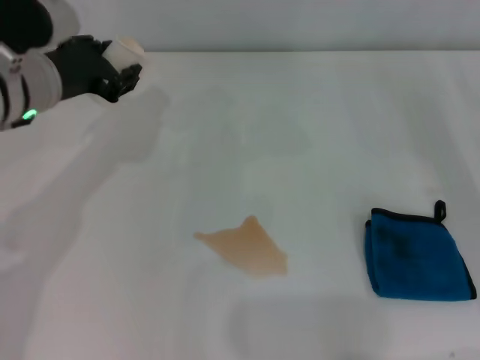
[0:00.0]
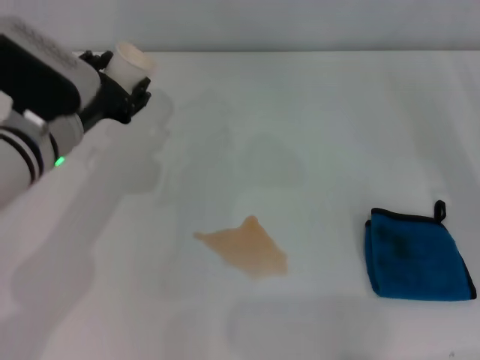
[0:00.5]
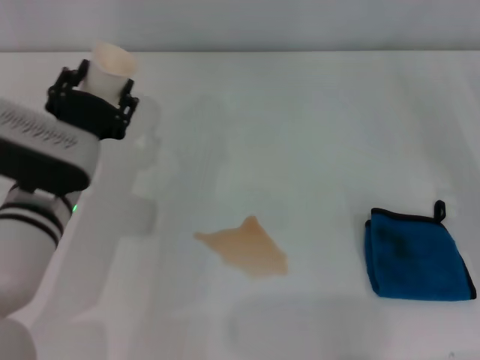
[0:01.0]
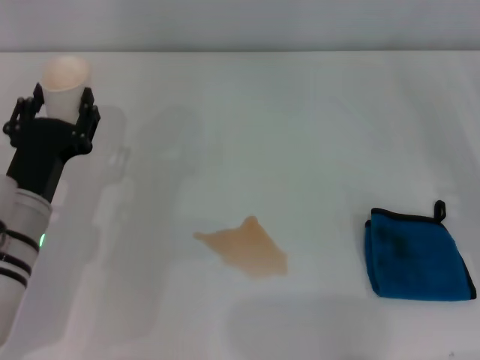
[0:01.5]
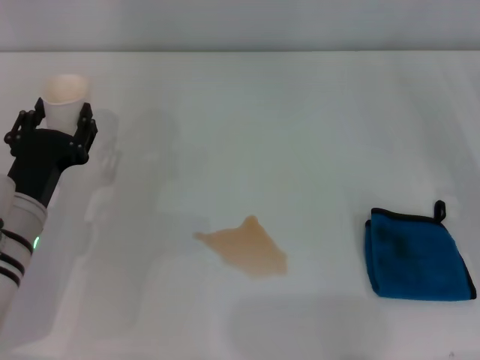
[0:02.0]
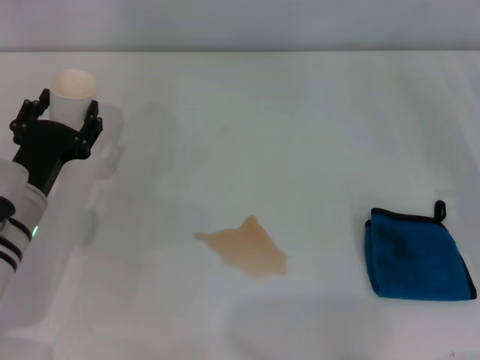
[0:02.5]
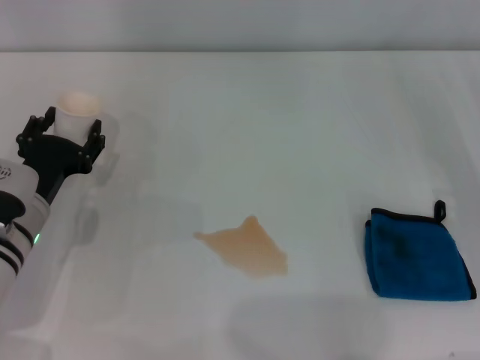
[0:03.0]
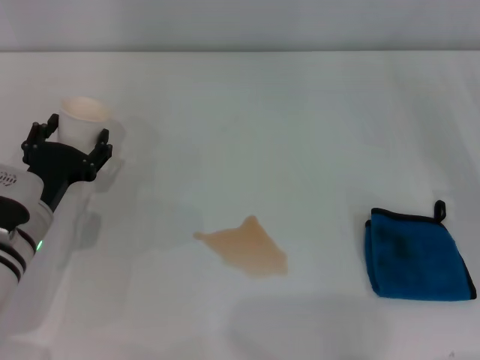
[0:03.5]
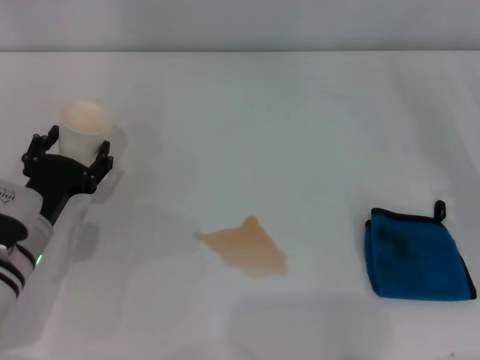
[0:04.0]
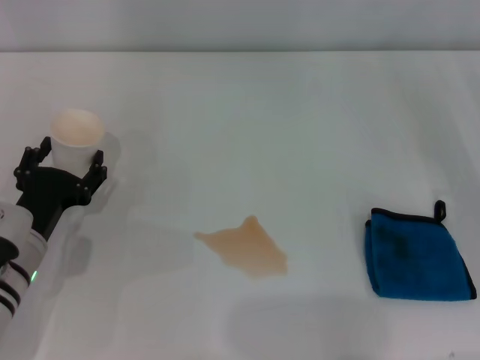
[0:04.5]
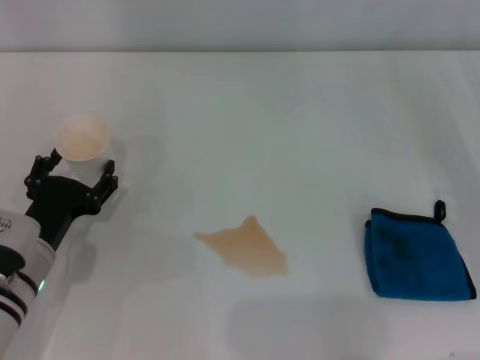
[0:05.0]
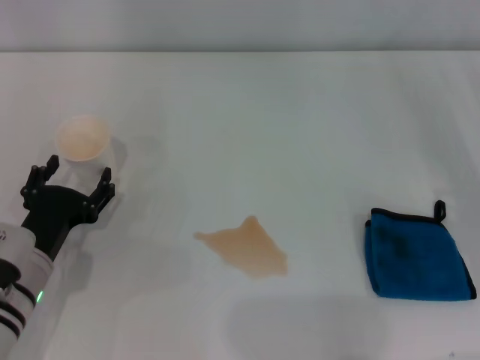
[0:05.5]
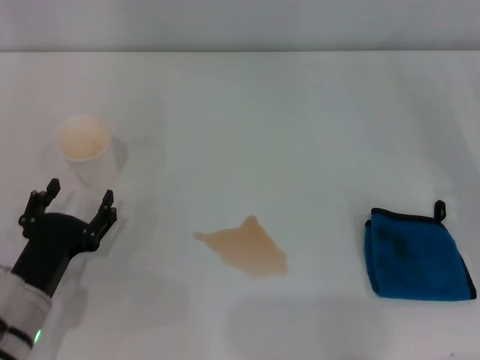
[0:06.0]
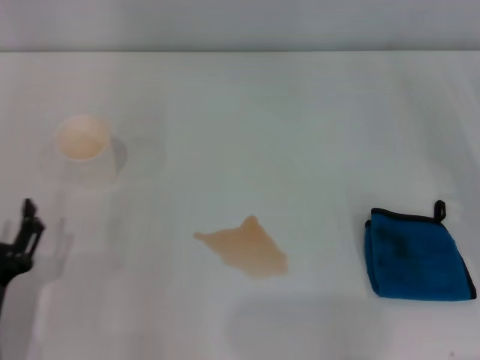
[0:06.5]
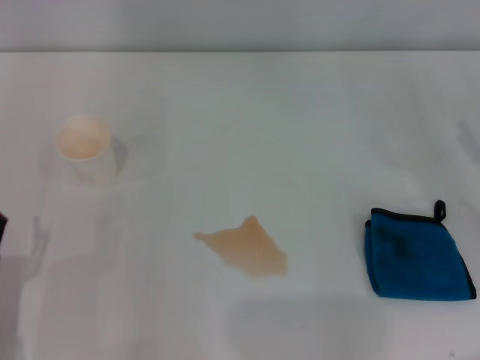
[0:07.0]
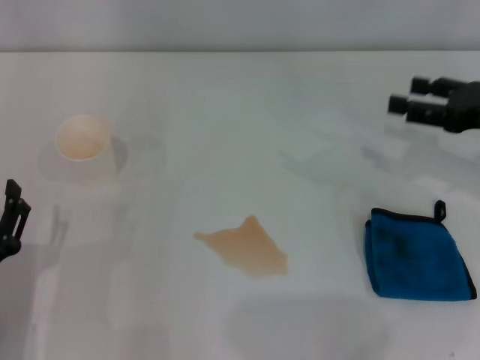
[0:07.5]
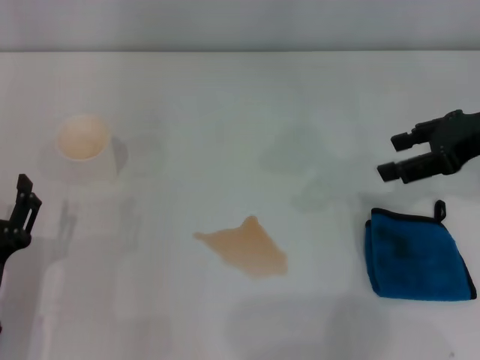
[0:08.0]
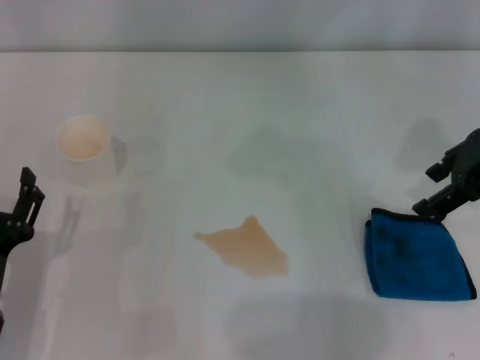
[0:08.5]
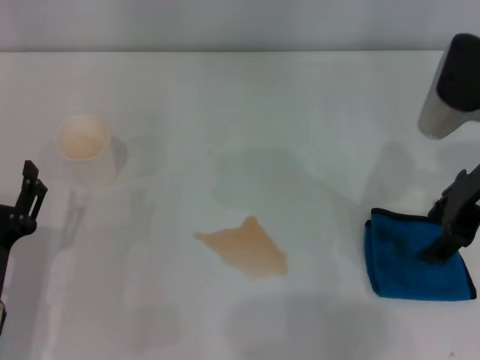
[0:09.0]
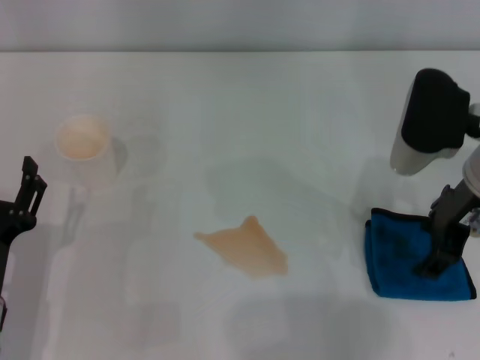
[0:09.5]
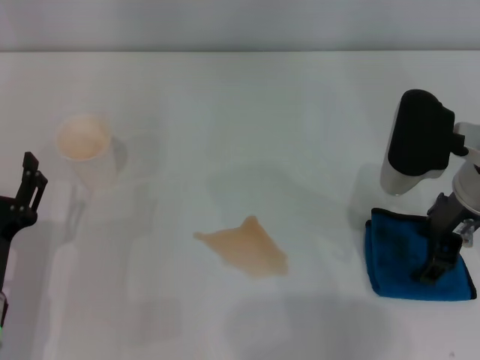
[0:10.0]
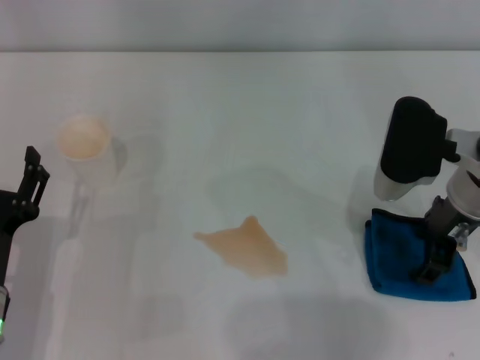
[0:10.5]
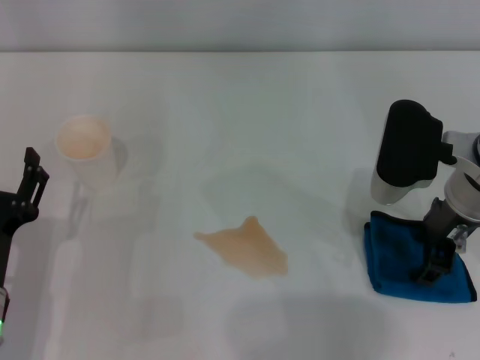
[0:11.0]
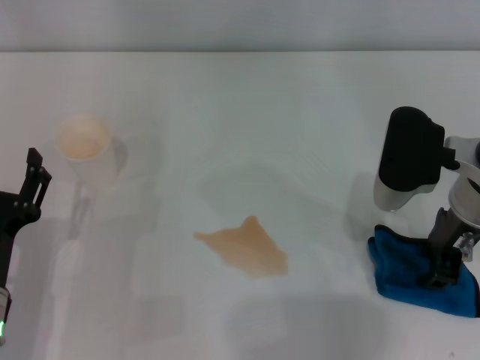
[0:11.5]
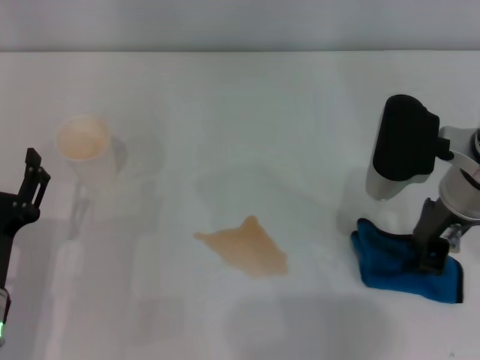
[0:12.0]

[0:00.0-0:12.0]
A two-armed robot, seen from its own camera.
Step, 0:00.0 to 0:05.0: Stand the paper cup upright with the left gripper.
Step, 0:05.5 to 0:11.5: Grasp the rag with the right gripper.
0:00.0 to 0:02.0: The left gripper goes approximately 15 cm downward and backward.
0:02.0 to 0:04.0: The left gripper opens its fingers.
0:04.0 to 0:06.0: The left gripper travels backward by some 10 cm.
0:06.0 to 0:08.0: The right gripper heads upward, forward and to the left, covering approximately 15 cm.
0:08.0 to 0:10.0: The right gripper heads to the left, covering roughly 10 cm.
0:10.0 to 0:12.0: The right gripper closes up.

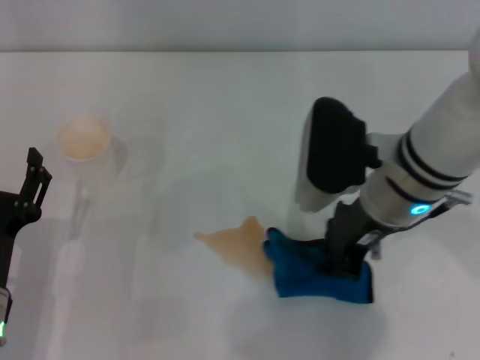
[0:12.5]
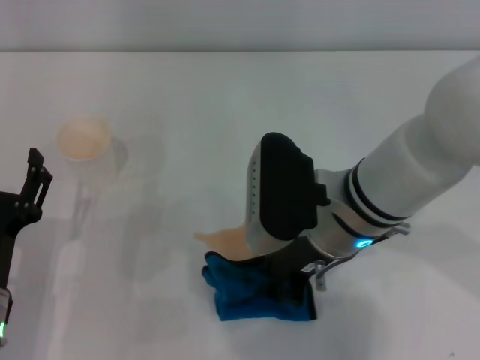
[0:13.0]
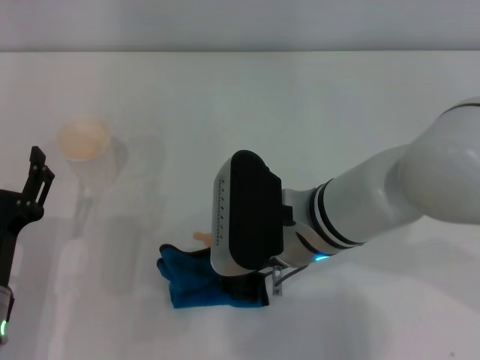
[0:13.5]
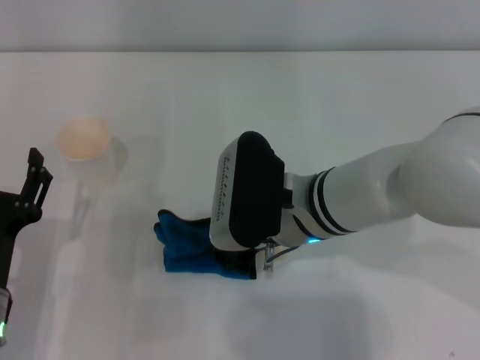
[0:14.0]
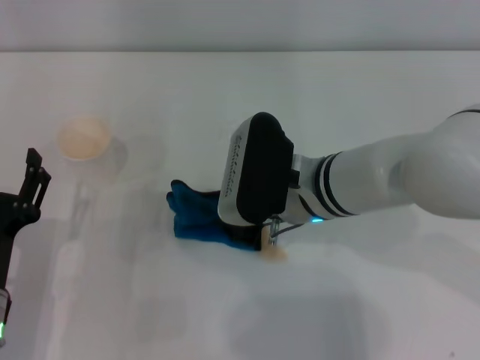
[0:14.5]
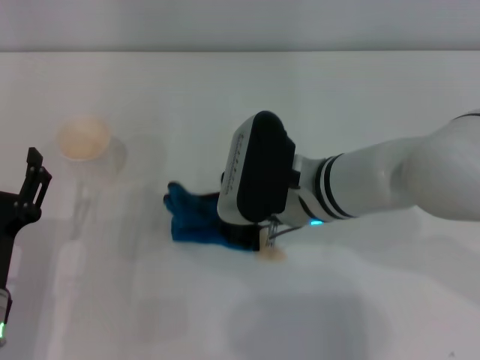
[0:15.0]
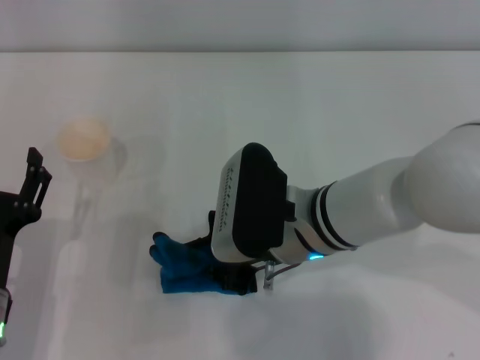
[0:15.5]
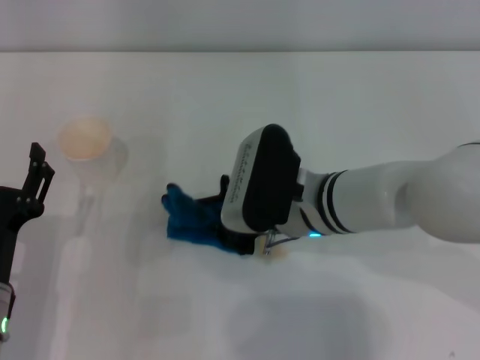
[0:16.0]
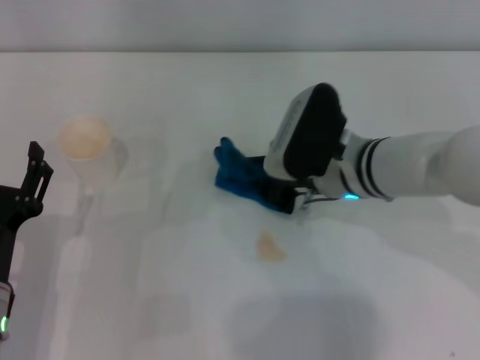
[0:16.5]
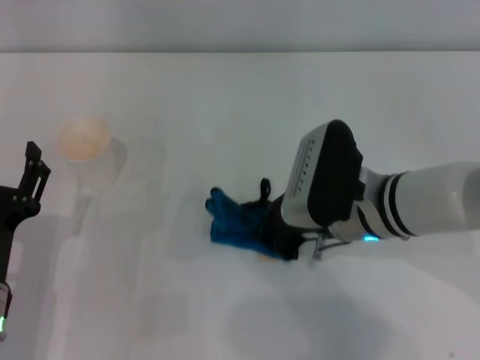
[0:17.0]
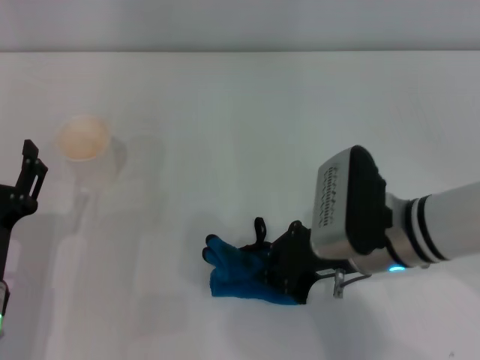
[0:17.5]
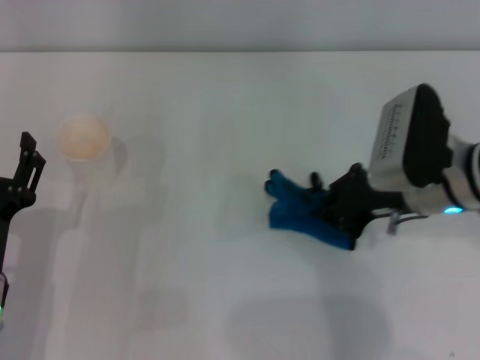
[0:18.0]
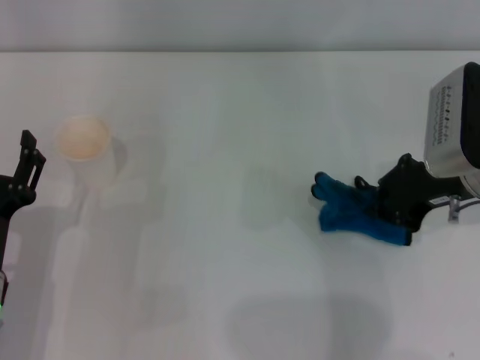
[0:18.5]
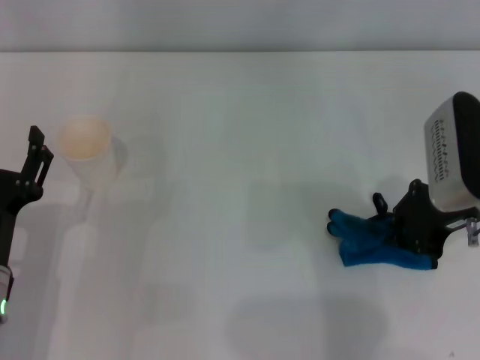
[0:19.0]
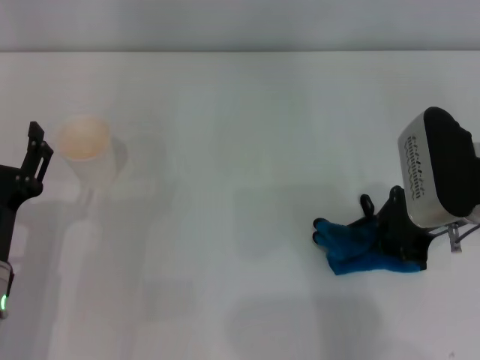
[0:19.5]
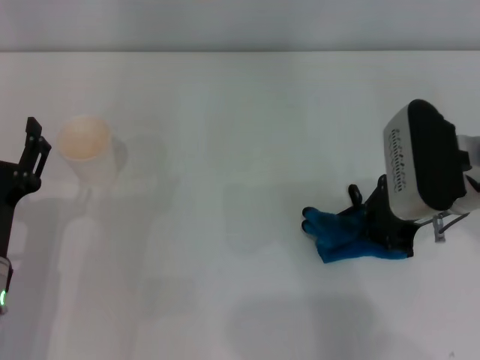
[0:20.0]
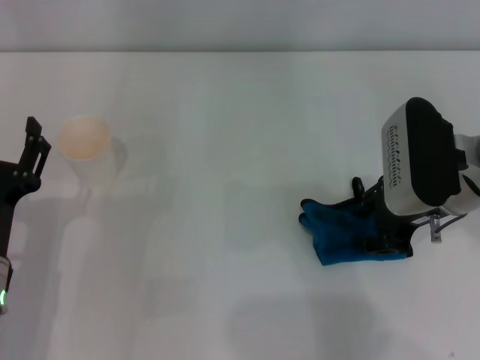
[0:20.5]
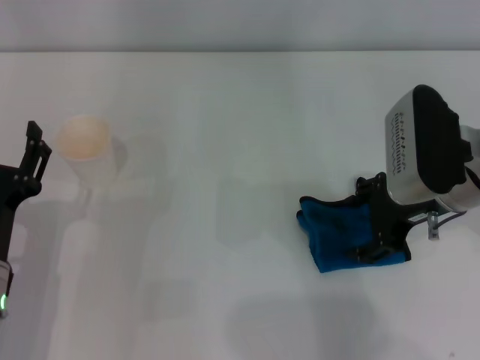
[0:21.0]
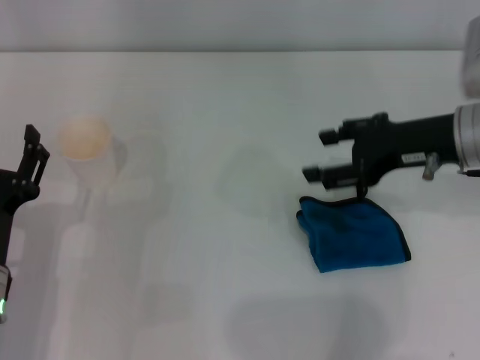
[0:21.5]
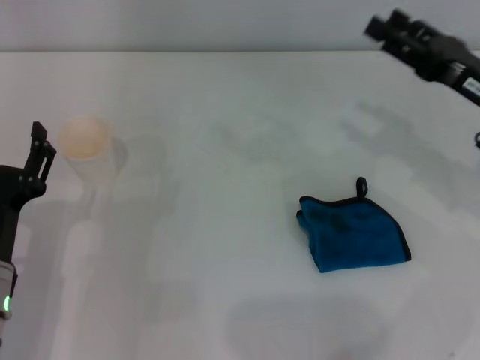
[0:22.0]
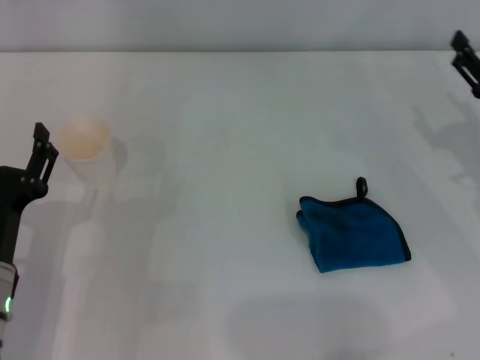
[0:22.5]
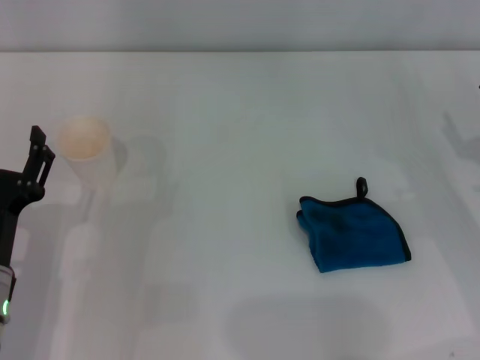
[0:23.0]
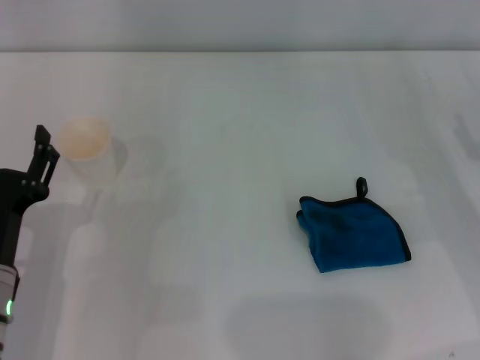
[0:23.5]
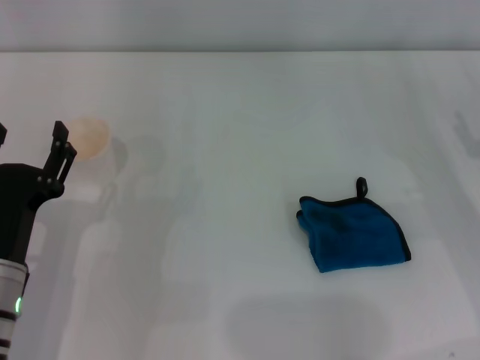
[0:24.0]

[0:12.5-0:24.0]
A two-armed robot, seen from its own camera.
Step, 0:12.5 to 0:18.0: Wipe the stains off the table with the right gripper.
Step, 0:18.5 to 0:20.5: Place the rag on the table with the right gripper.
0:12.5 to 0:14.5: The right gripper travels to the left by approximately 5 cm.
0:14.5 to 0:16.5: The right gripper moves to the right, roughly 5 cm.
0:16.5 to 0:18.5: The right gripper goes roughly 15 cm to the right and upward.
0:18.5 to 0:20.0: The grippers stay close to where they were, moving slightly.
0:20.0 to 0:22.0: The right gripper shifts approximately 5 cm to the right, and opens up.
0:22.0 to 0:24.0: The right gripper shifts some 10 cm to the right and downward.

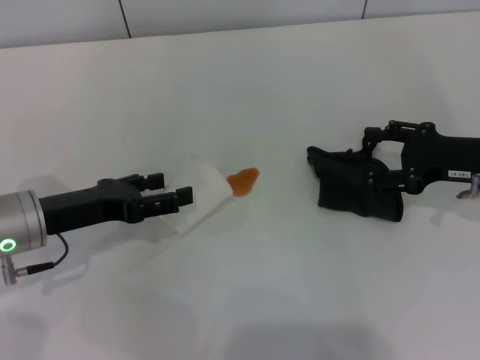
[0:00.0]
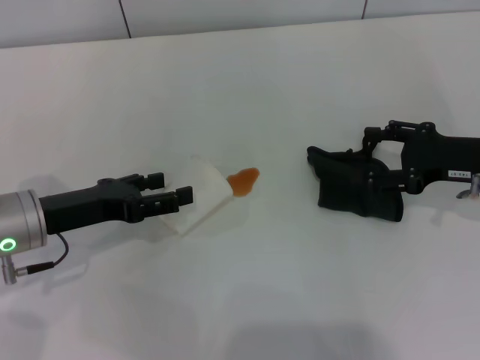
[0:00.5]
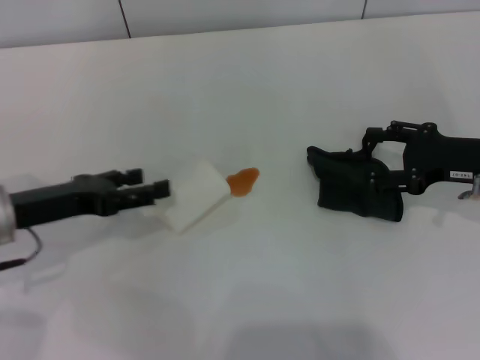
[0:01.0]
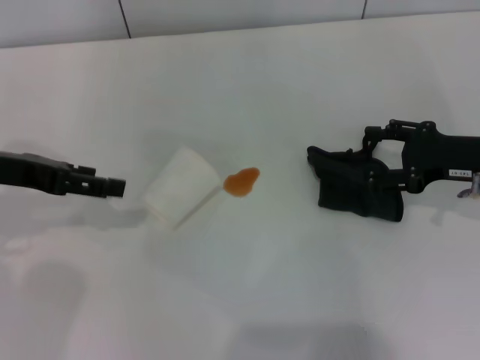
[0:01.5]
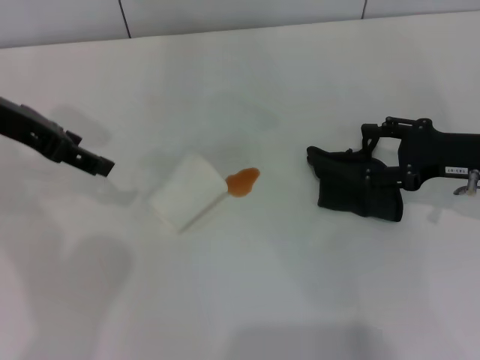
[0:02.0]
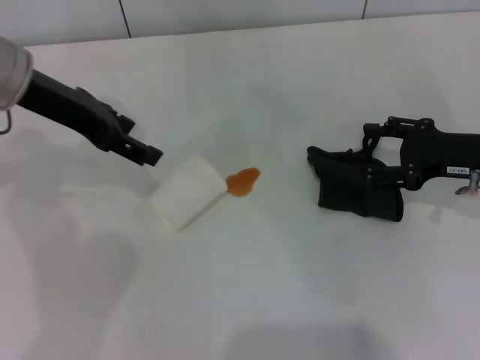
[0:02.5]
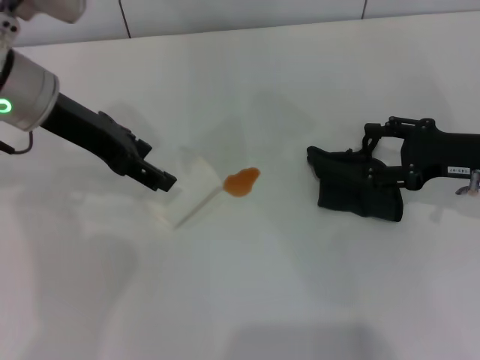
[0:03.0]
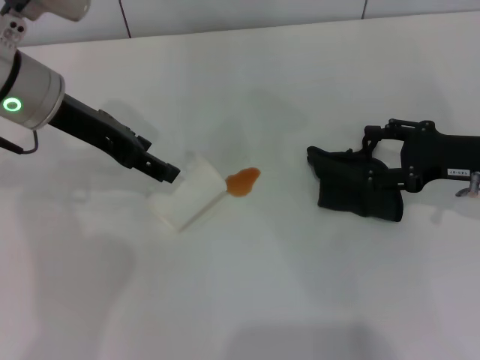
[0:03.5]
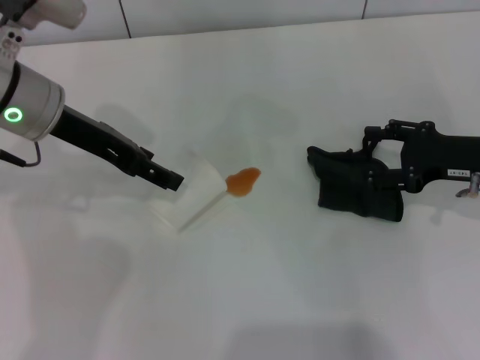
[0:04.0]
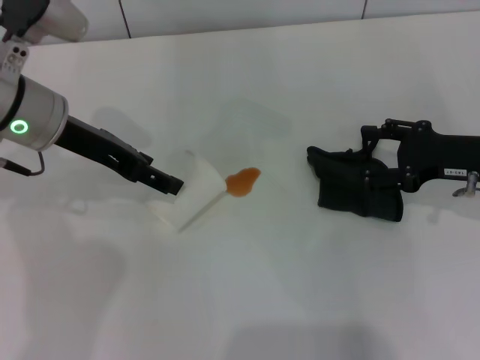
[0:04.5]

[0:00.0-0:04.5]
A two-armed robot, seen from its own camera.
0:00.0 to 0:02.0: The left gripper moves upward and forward, about 15 cm.
0:02.0 to 0:04.5: The left gripper shifts roughly 5 cm to the right.
